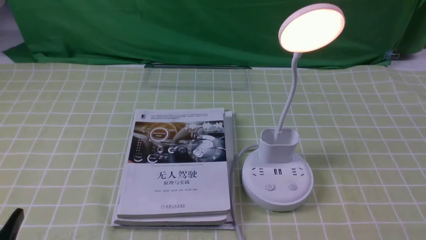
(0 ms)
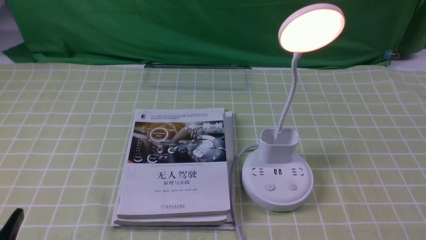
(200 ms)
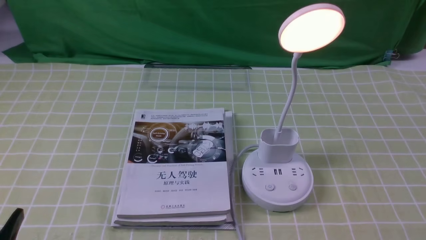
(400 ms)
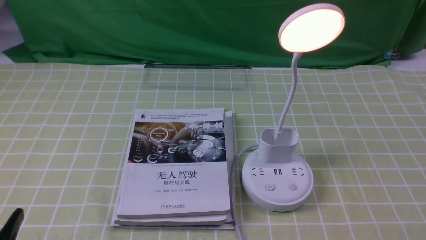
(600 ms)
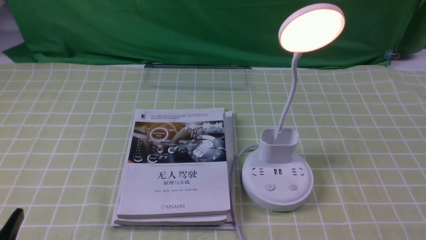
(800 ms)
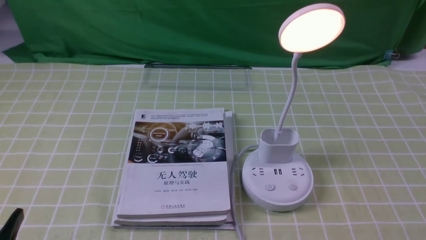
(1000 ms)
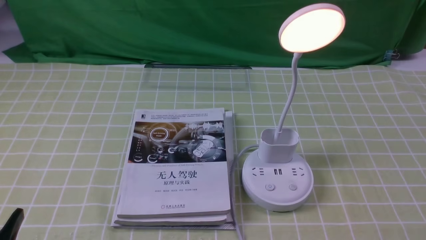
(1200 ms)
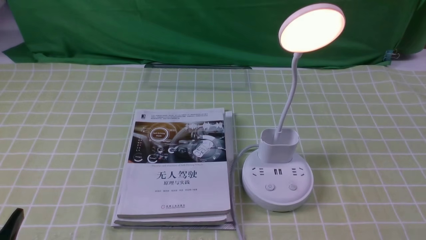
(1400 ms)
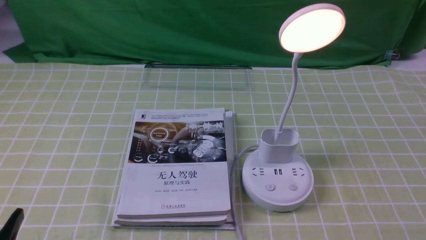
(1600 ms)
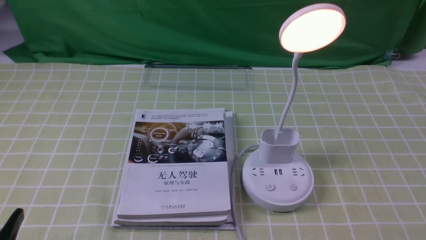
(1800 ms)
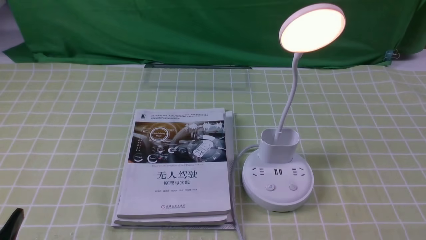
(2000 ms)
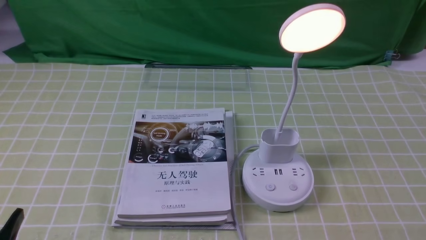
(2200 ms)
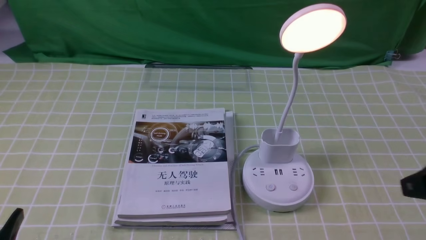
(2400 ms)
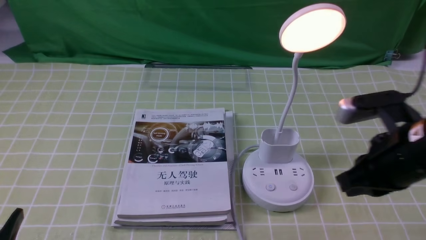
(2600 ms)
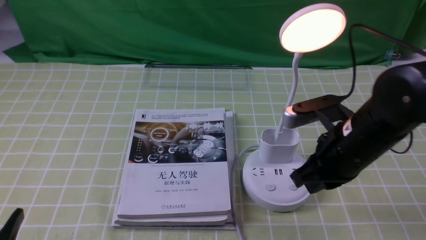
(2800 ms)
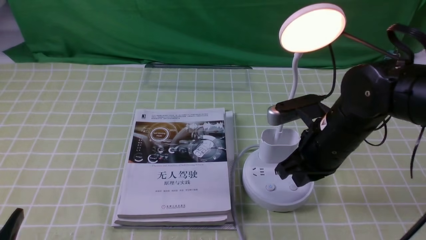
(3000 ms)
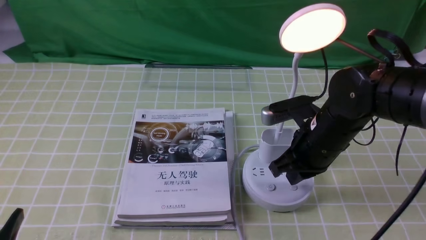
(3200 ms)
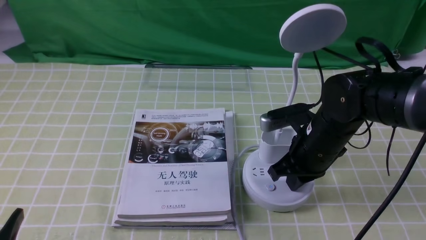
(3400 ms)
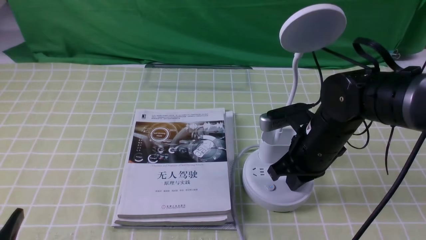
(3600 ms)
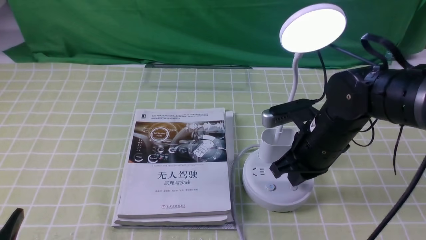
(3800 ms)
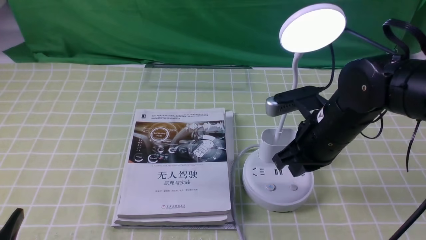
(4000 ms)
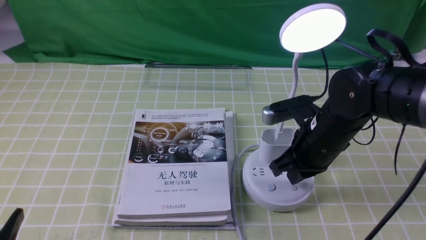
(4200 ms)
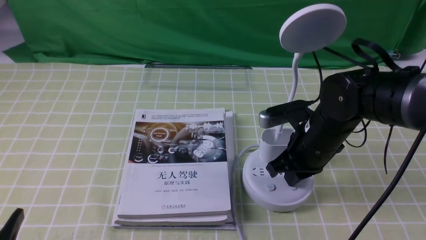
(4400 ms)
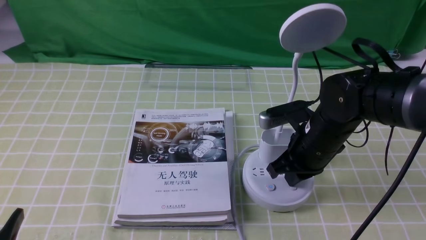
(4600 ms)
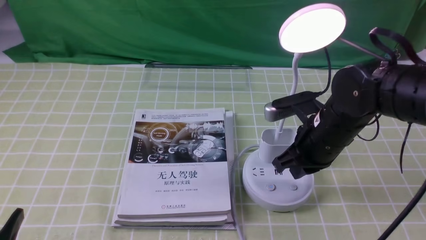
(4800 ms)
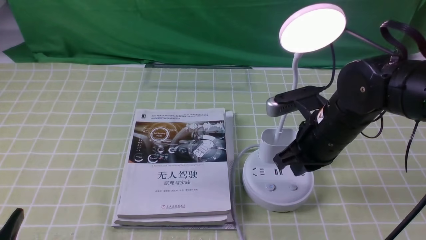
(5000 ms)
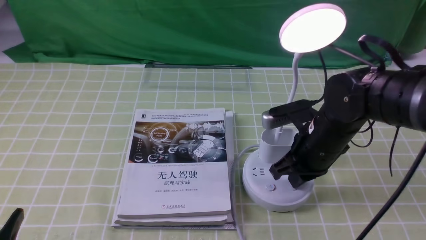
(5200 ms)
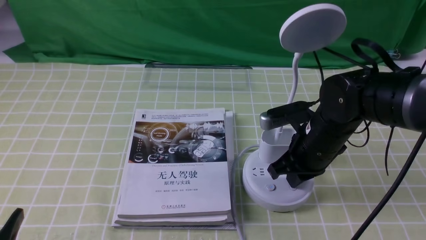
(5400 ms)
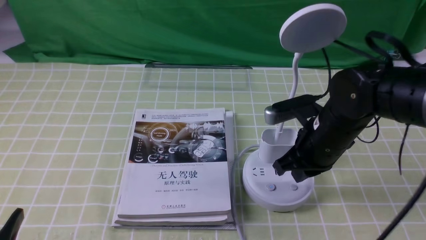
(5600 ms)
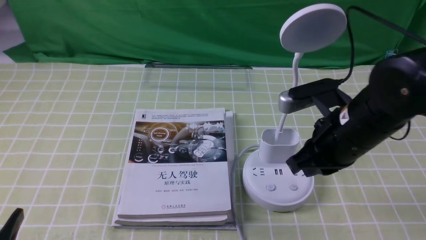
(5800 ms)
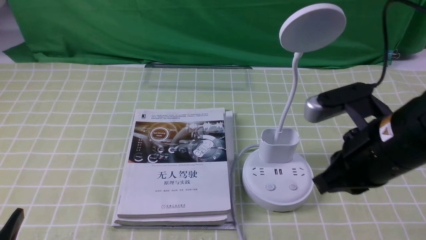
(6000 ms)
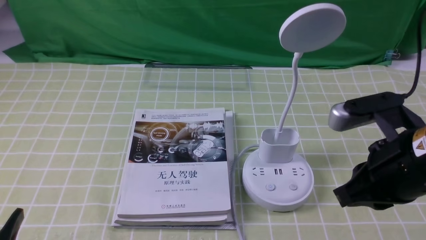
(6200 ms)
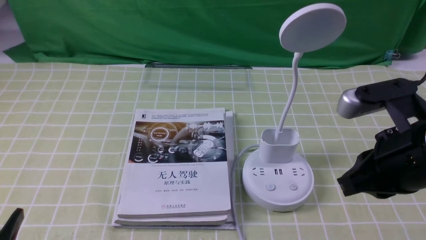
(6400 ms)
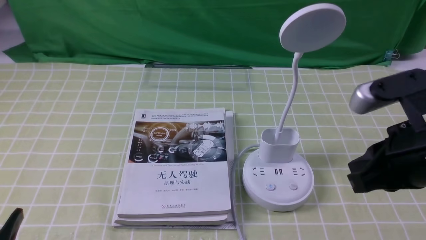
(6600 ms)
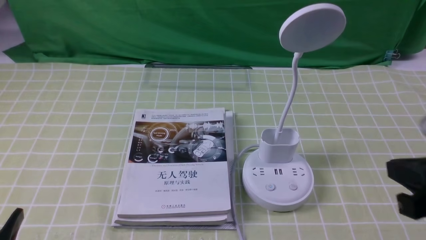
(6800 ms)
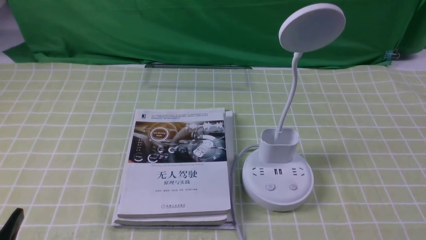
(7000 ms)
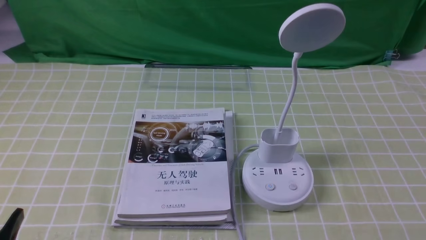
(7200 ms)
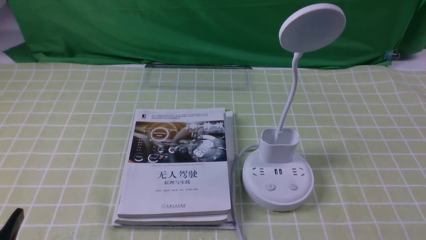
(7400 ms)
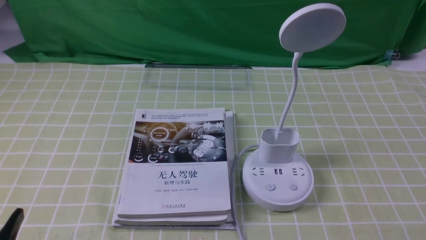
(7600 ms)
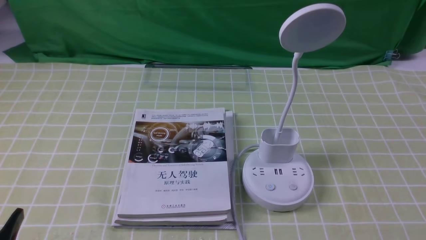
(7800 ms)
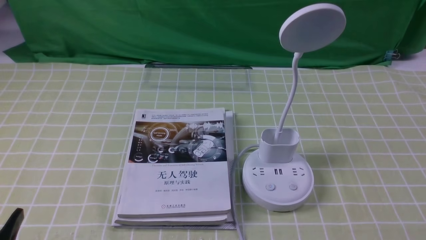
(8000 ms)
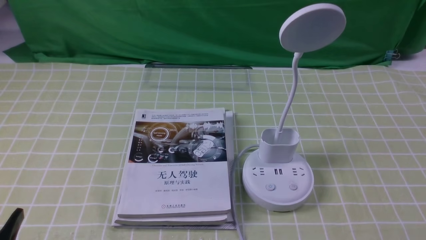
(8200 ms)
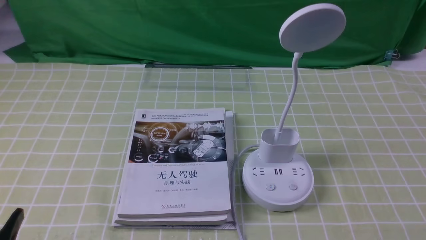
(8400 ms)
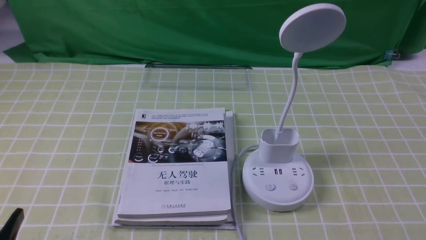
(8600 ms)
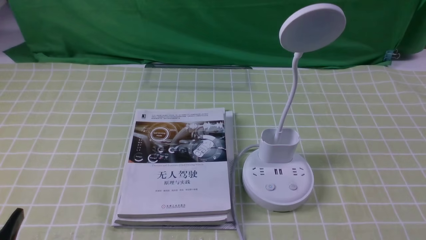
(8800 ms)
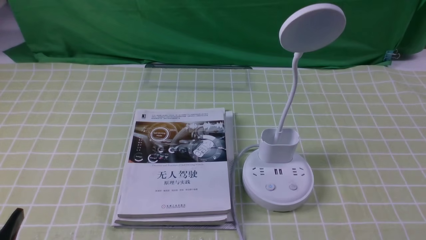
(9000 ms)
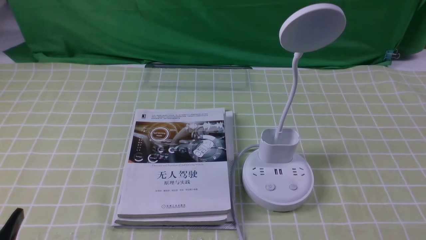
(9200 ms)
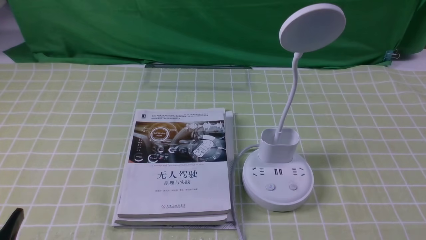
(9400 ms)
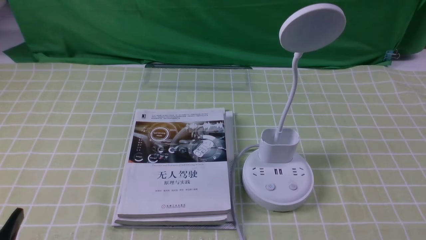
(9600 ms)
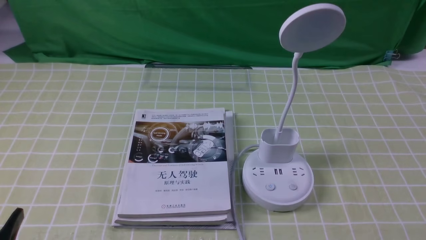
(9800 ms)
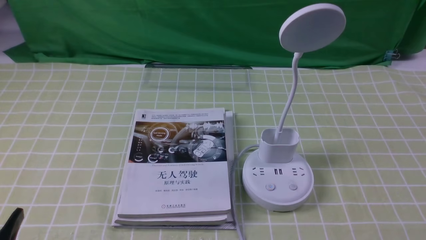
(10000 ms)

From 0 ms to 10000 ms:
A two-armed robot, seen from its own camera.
Task of the whole recording: turn off the desk lamp on the green coffee tablecloth by hand.
Step, from 0 ms to 5600 ms: use the right arm to press the button switch on the lamp holder.
From 1400 ms to 2800 ms: The right gripper heads forward and to the left, covering roughly 25 cm, and closes its fingers.
From 2800 ms to 4200 ms: The right gripper moves forward and downward, about 10 cm.
From 4200 ms to 5800 ms: The grippers stay close to where they were, moving slightly.
From 5800 ms to 7200 ms: The right gripper heads backward and to the right, covering roughly 25 cm.

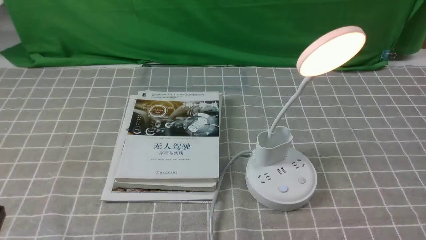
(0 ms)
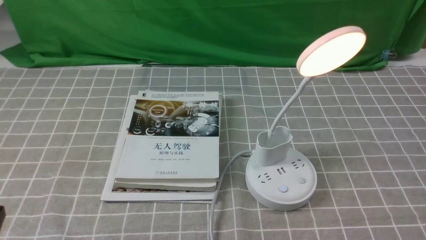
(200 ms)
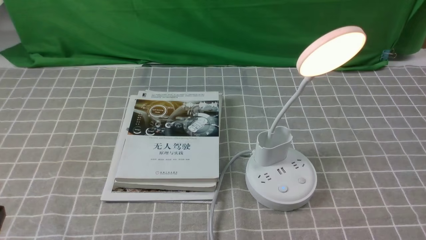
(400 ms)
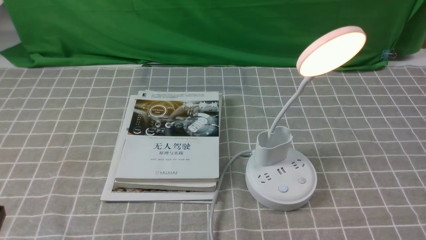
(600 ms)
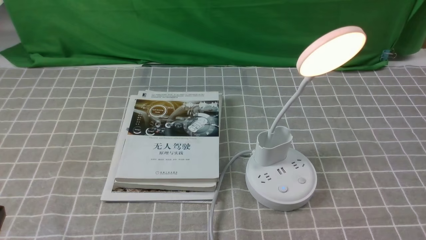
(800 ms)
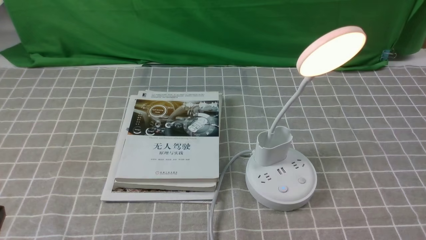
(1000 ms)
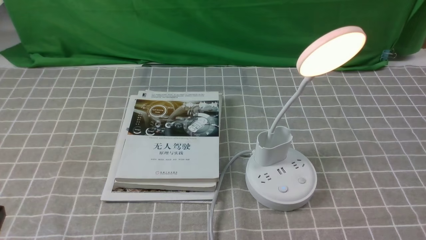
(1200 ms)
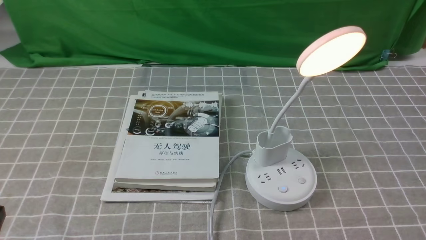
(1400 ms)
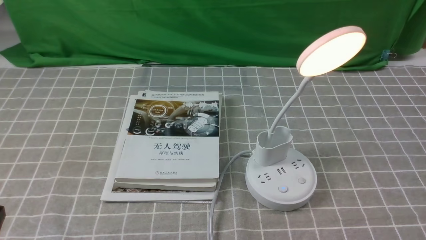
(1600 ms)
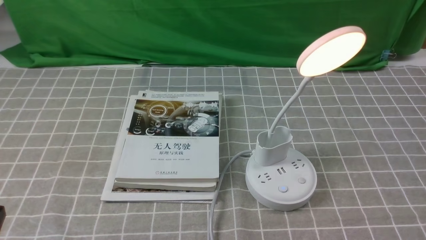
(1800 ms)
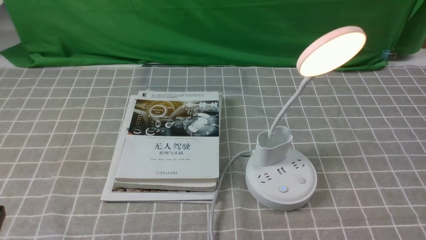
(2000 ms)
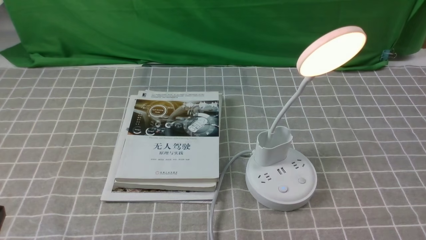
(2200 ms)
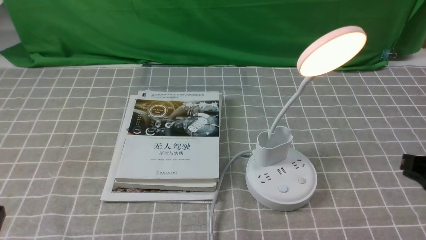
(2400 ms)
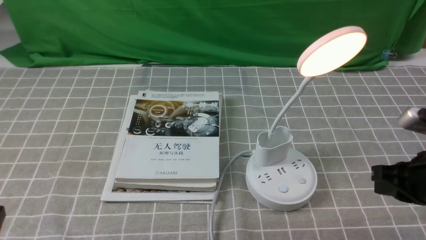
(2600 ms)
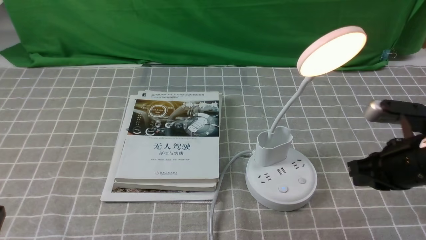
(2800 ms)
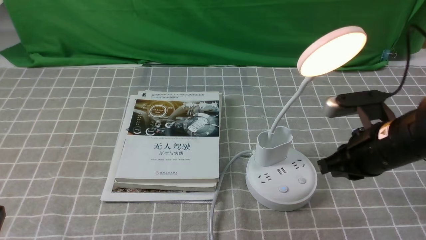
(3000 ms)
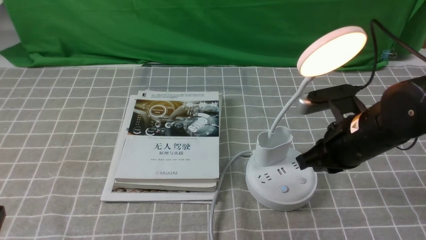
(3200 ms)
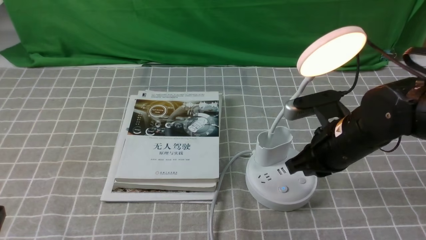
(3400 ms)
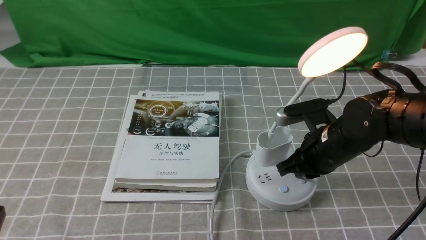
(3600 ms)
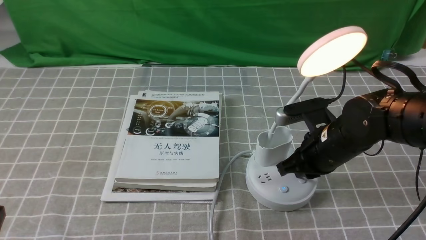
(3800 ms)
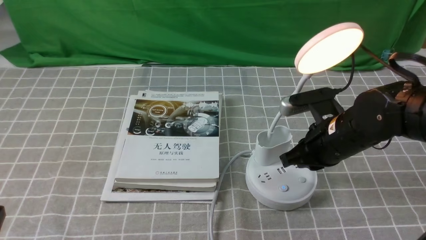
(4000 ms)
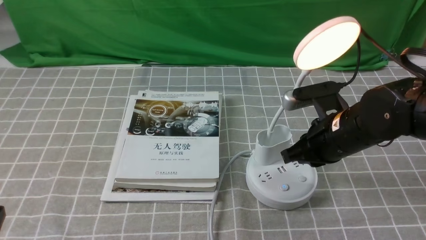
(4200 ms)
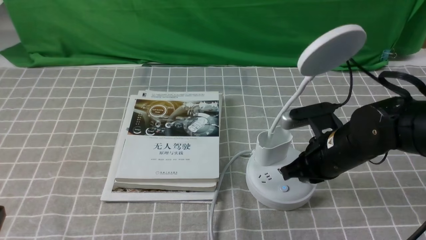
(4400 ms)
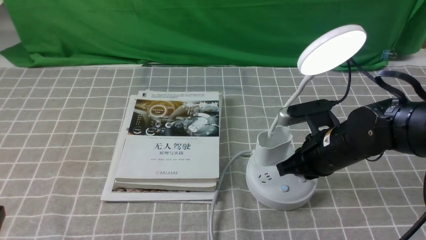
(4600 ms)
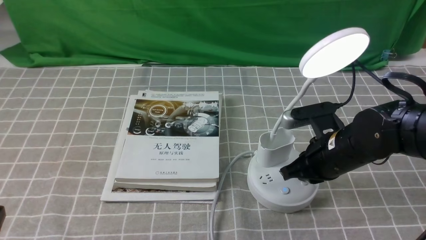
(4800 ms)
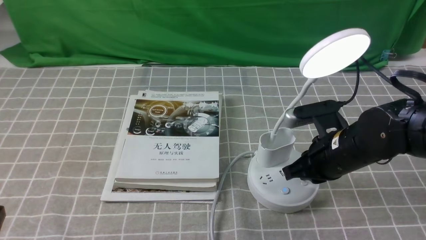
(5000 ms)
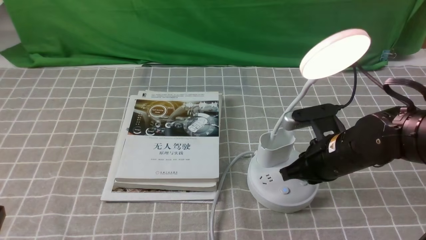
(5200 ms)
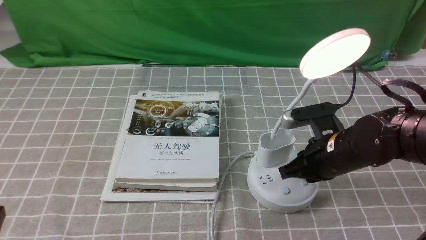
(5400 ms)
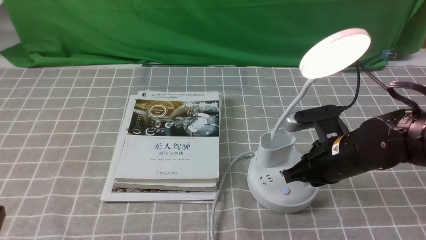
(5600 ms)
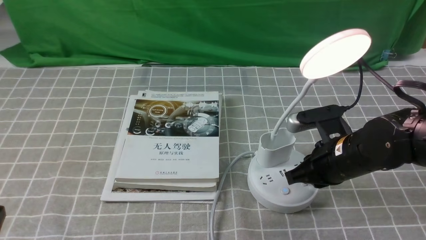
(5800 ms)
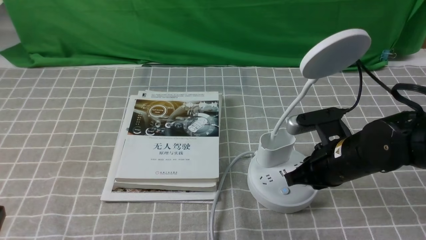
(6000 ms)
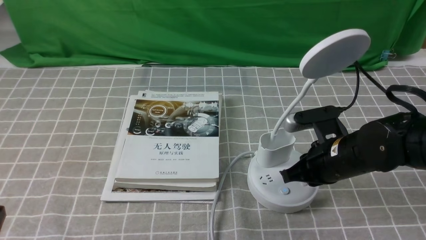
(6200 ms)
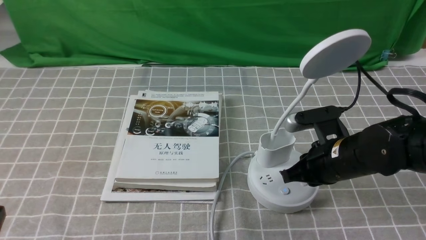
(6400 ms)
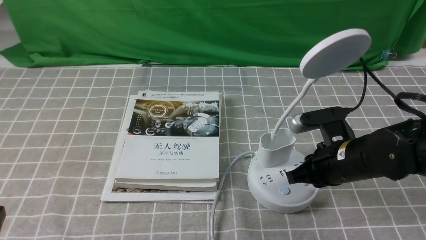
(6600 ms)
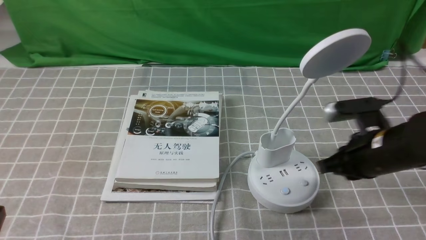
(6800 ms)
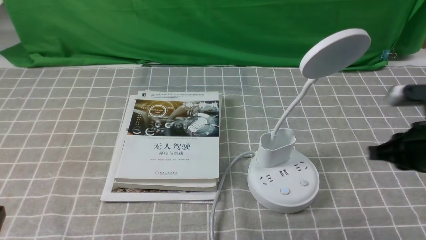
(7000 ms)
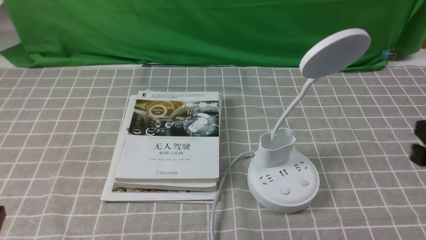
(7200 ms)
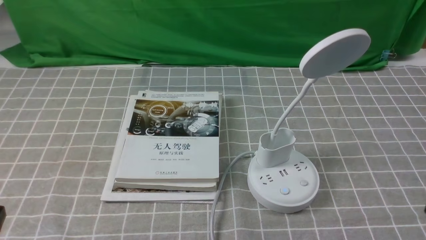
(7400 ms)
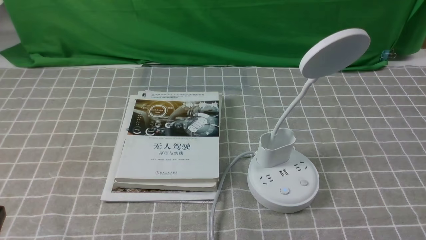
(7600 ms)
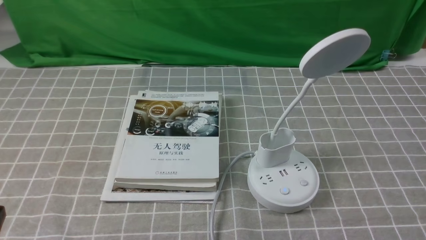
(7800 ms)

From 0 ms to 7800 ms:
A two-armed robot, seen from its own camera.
Task of the whole recording: turn off the desk lamp on the grey coffee tablecloth by hand.
Step, from 0 ms to 6600 ms: use the right arm to press the button switch on the lamp holder.
From 1600 ms to 3200 ms: The right gripper goes roughly 25 cm forward and to the left.
From 3200 ms to 6200 ms: The grippers stay close to where they were, moving slightly.
From 6200 ms to 7800 ms: The right gripper is displaced backward, to the right and upward by some 25 cm, and closes.
